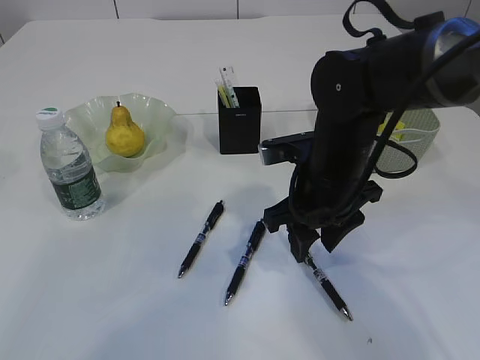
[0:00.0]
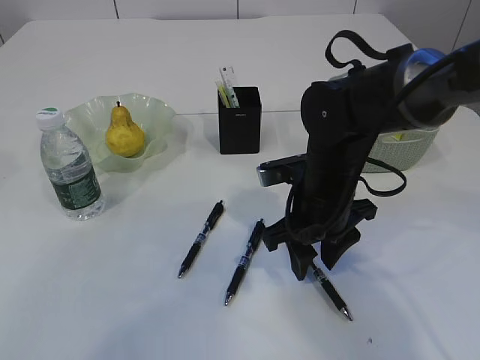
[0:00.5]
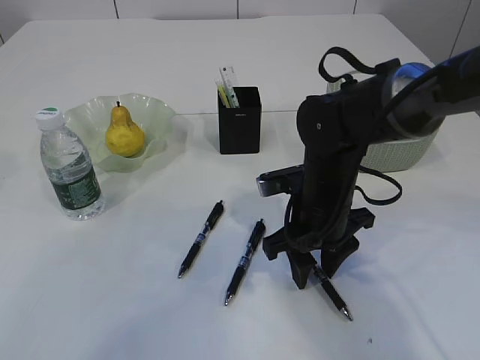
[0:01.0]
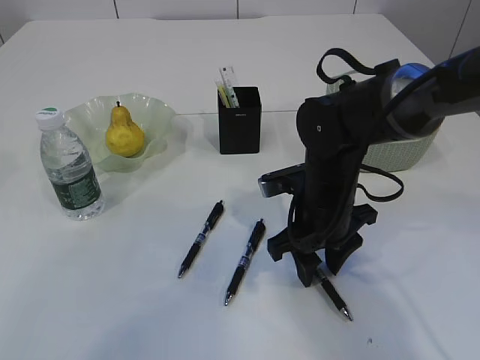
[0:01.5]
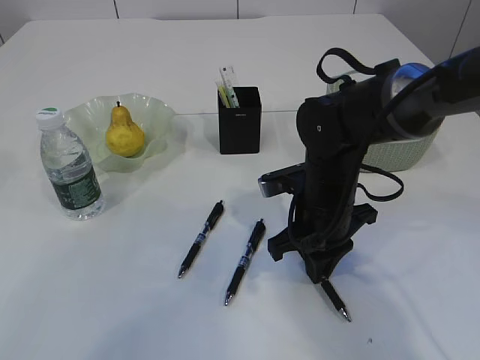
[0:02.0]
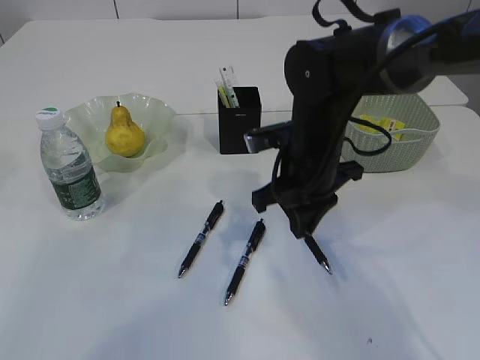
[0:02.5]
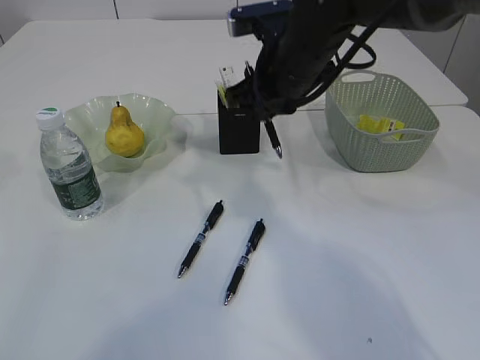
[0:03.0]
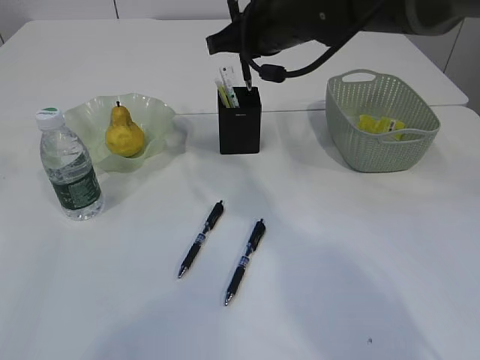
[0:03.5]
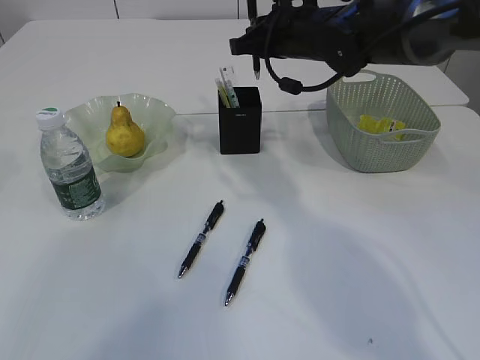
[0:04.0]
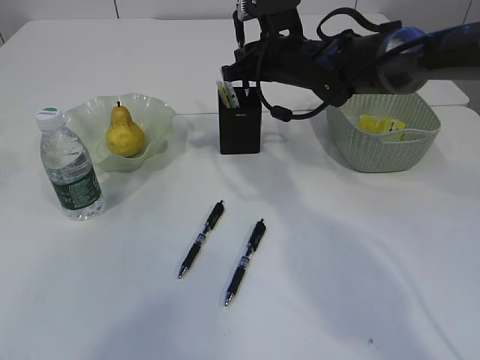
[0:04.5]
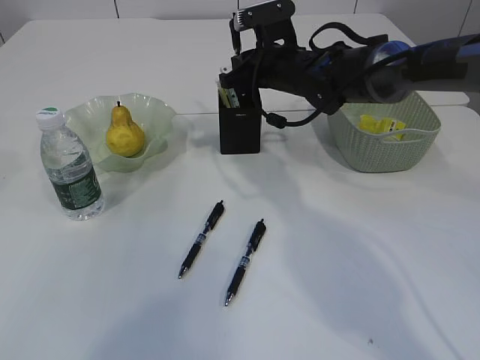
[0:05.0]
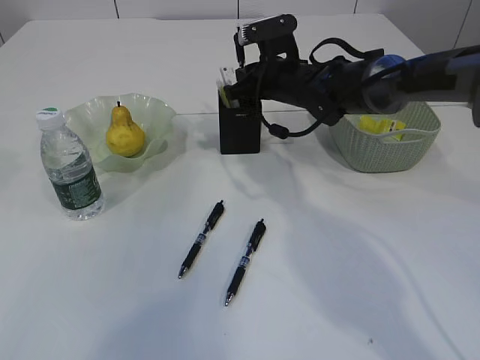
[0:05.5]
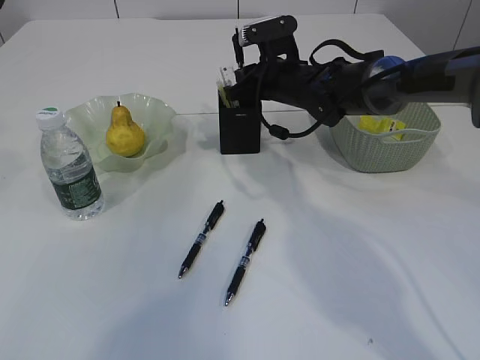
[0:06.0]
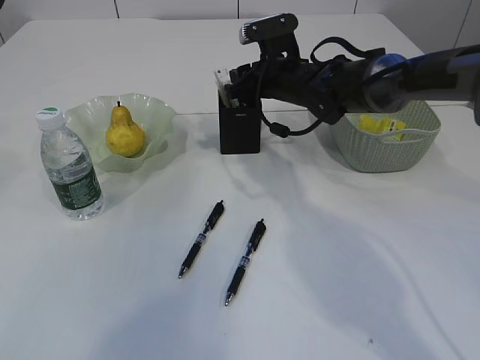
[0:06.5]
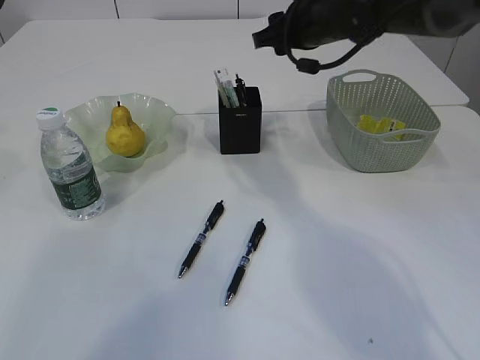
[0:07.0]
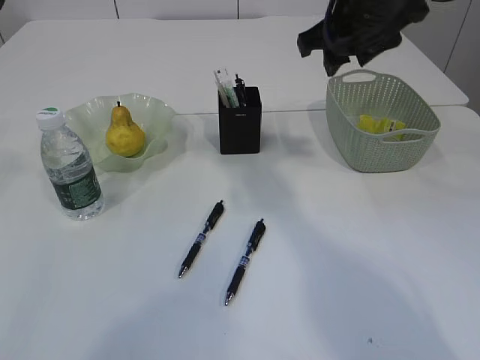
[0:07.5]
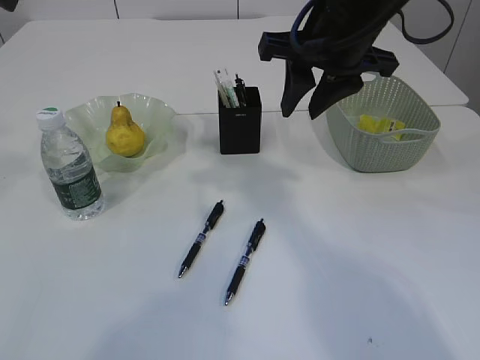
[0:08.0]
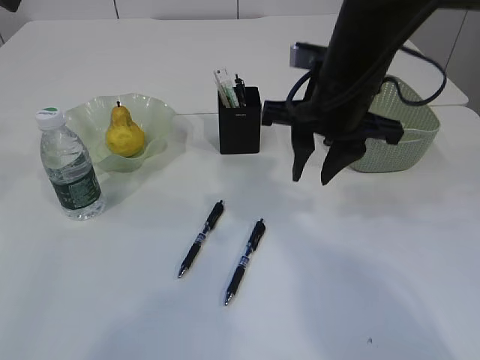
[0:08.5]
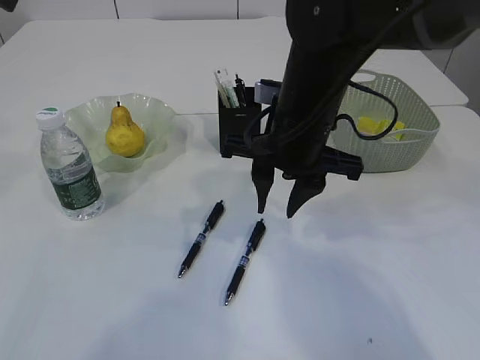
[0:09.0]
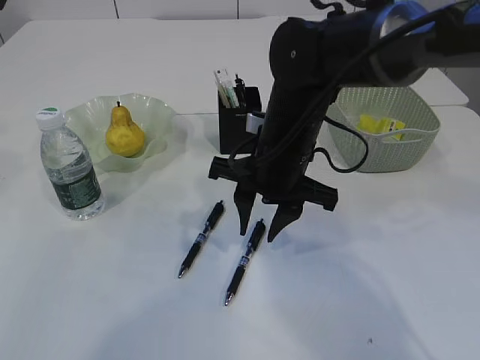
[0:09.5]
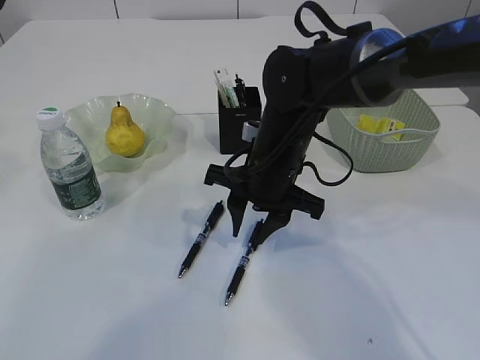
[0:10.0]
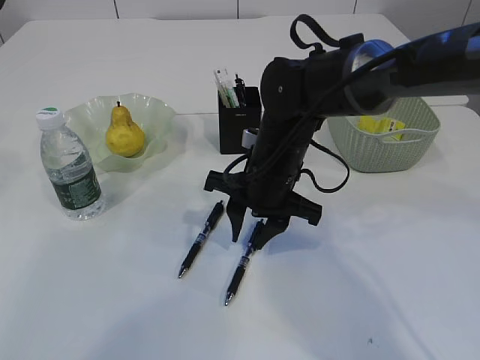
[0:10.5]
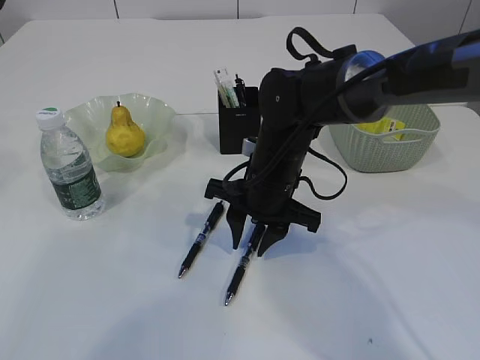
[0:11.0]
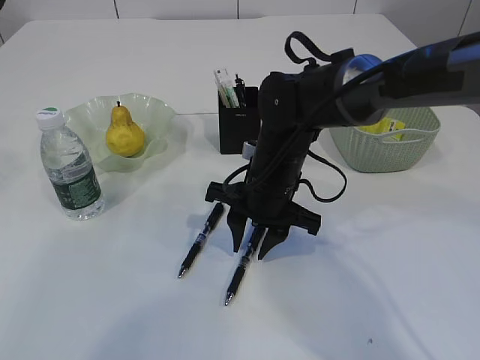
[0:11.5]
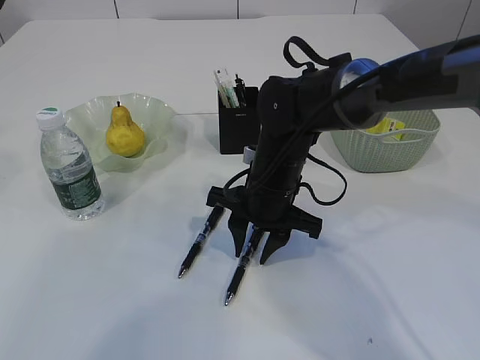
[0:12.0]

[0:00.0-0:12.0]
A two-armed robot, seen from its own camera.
Step, 0:00.0 to 0:02.5: Pick up the pen with right arm.
Step, 0:03.0 to 0:06.5: Place the pen into the pen holder.
0:00.0 to 0:02.0: The right gripper closes.
0:02.0 to 0:04.0: The right gripper moves forward and upward, approximately 20 cm.
0:04.0 to 0:06.0: The right gripper is displaced downward by some 10 cm.
0:06.0 to 0:08.0: The right gripper travels upward and backward by approximately 20 cm.
0:08.0 to 0:10.0: The right gripper heads downward and to the left, covering roughly 15 cm.
0:10.0 to 0:12.0: The grippers make only small movements.

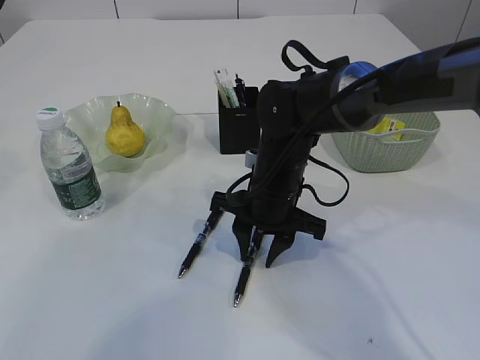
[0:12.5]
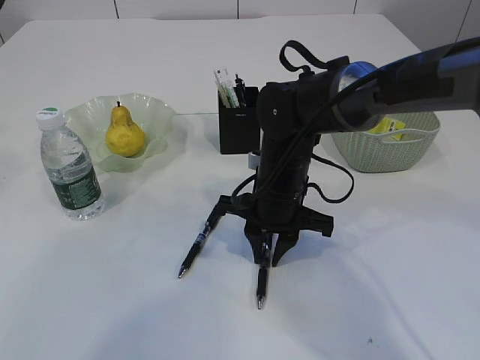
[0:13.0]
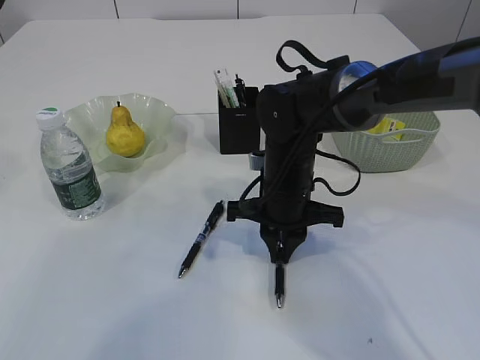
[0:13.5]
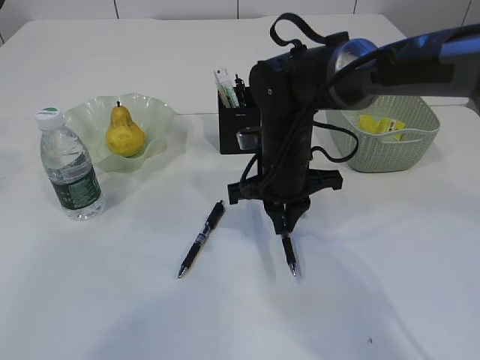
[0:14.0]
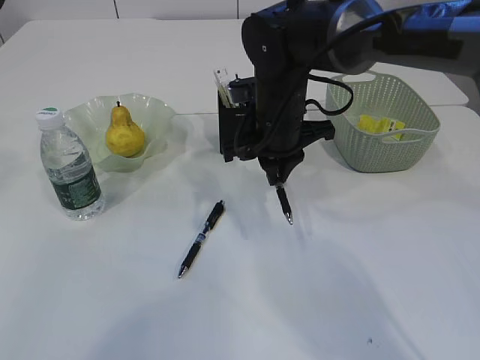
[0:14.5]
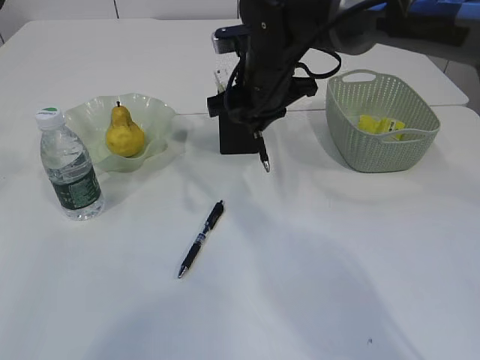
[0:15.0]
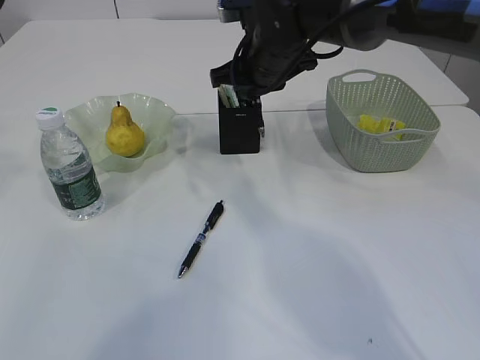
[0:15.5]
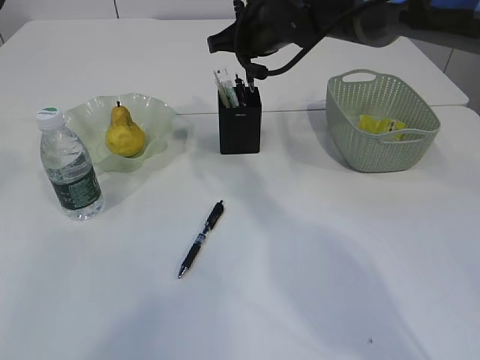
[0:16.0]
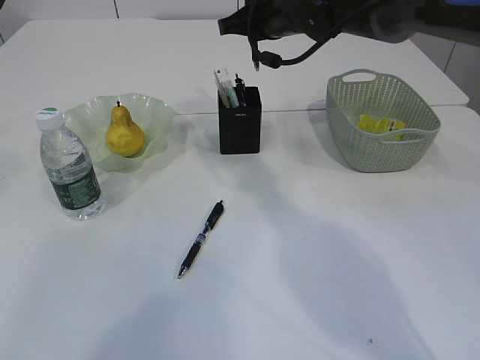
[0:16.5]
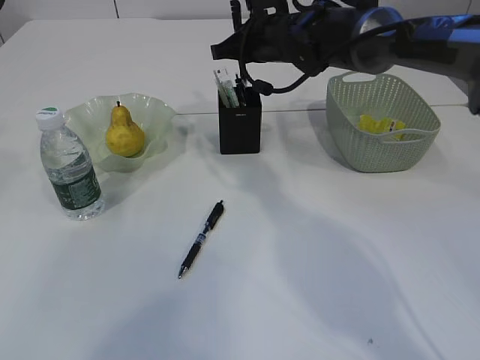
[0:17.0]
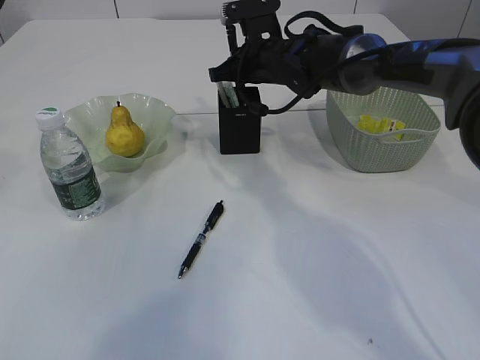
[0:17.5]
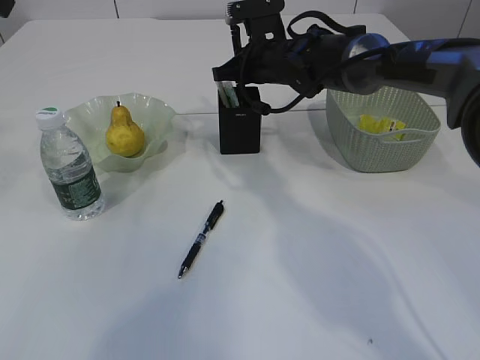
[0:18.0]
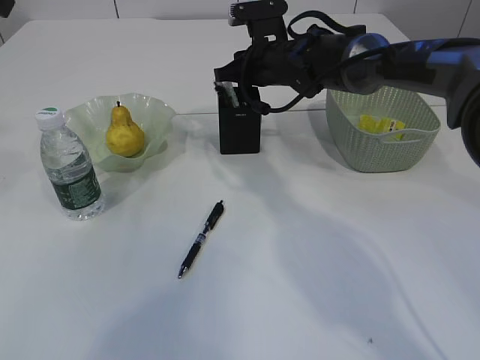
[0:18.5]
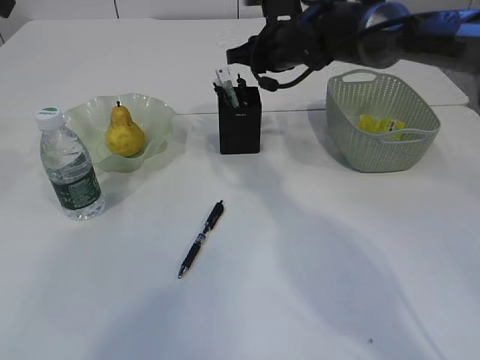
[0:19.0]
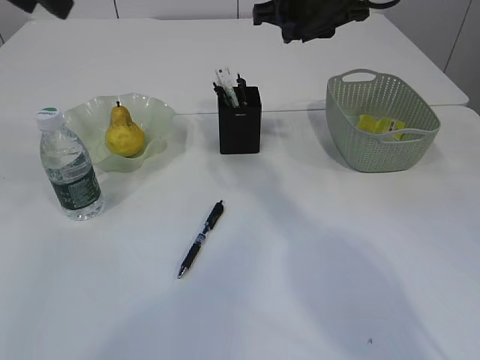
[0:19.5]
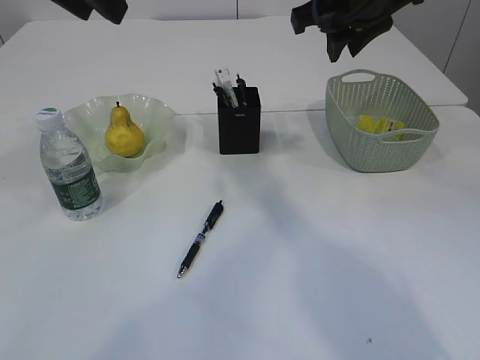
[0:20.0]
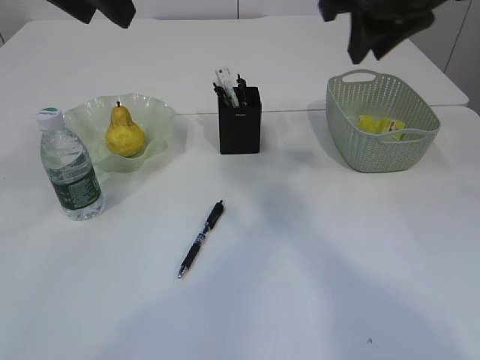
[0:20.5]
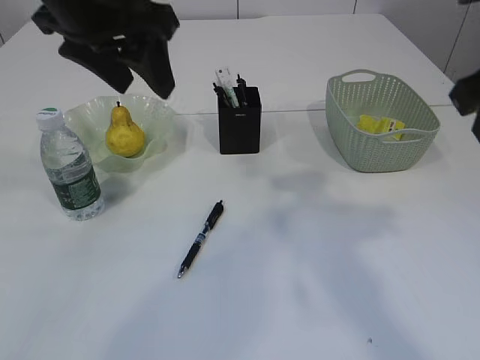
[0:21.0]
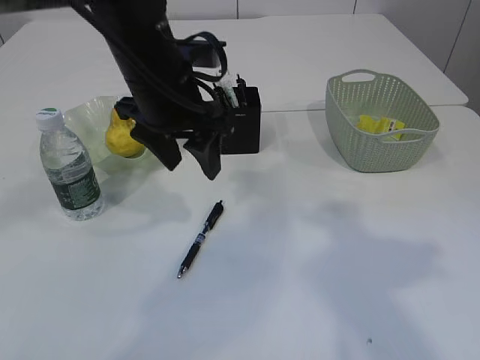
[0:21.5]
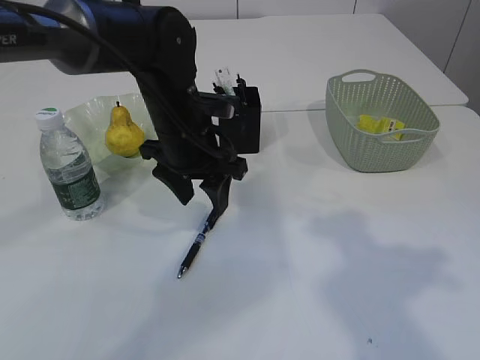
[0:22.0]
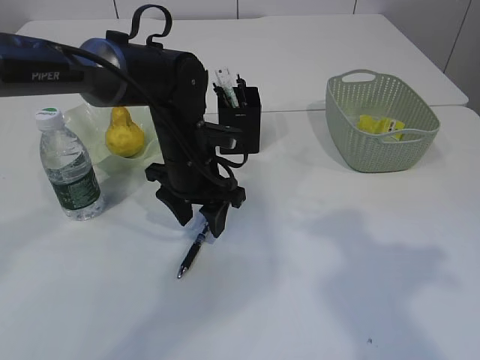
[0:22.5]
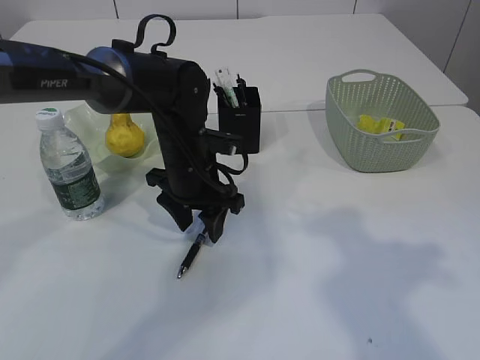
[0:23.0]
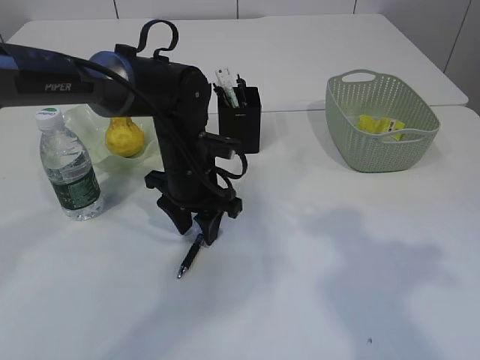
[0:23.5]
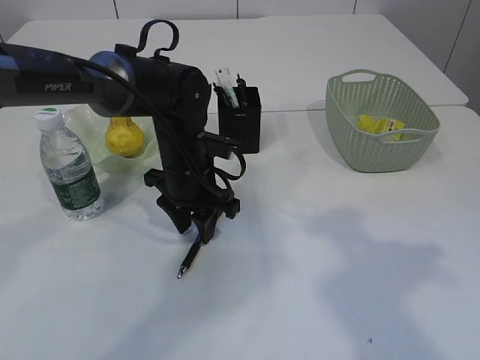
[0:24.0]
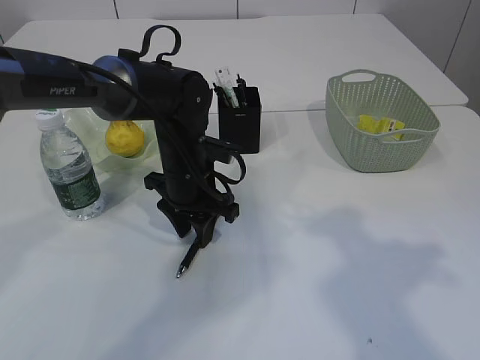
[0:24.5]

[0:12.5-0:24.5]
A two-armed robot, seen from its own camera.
Step, 0:14.5 to 0:19.0: Place the pen into the pen holder.
0:12.5 to 0:14.5: The right gripper is displaced upward by approximately 5 cm, and closes.
0:14.5 to 0:16.5: The right gripper shifts roughly 10 cm forward and upward.
0:16.5 to 0:18.5: The right gripper goes roughly 10 cm downward.
0:18.5 to 0:20.5: The left gripper moves to the right, about 10 cm, while the right gripper is displaced upward, backward and to the right by roughly 25 cm.
0:20.5 to 0:22.5: The left gripper moves downward, roughly 25 cm. The right gripper travels backward and to the right by some 20 cm.
0:22.5 to 0:24.5: The grippers make only small movements.

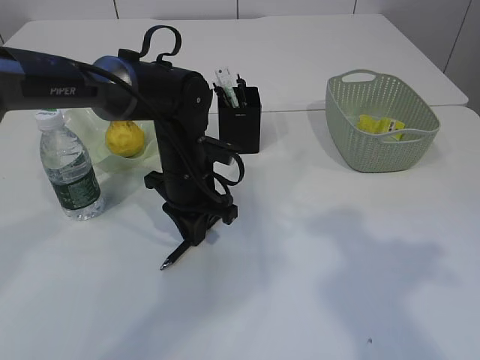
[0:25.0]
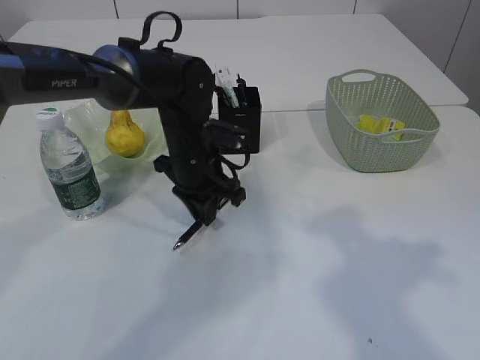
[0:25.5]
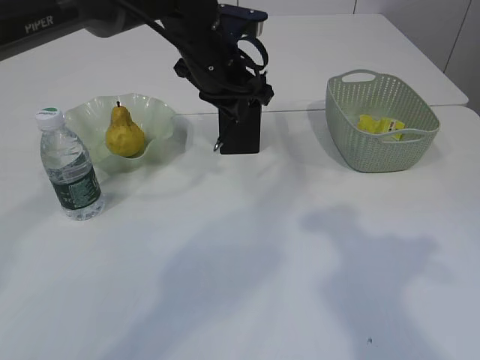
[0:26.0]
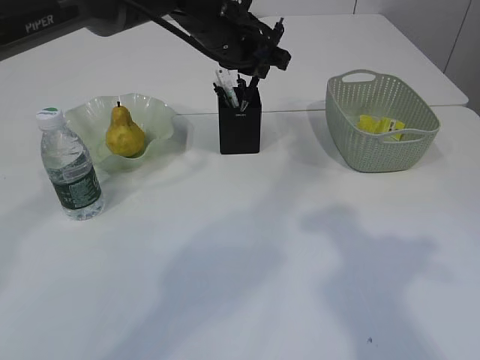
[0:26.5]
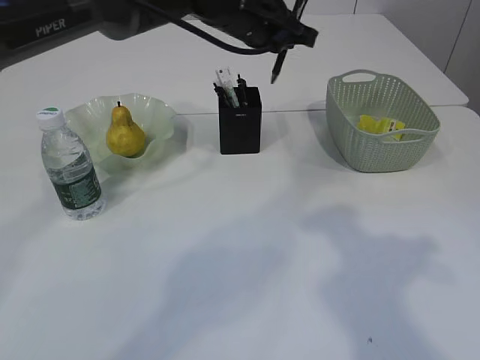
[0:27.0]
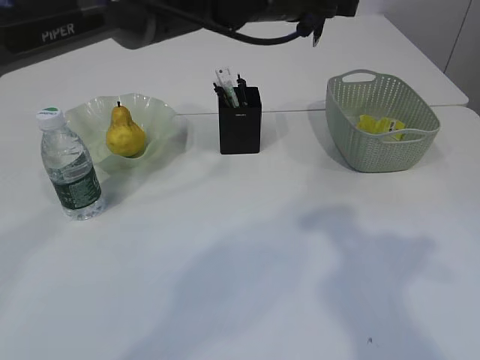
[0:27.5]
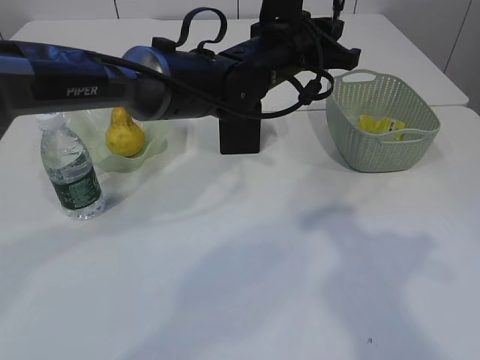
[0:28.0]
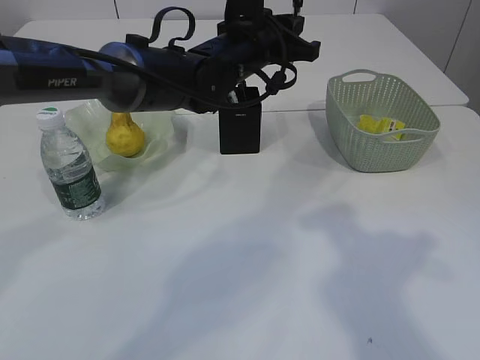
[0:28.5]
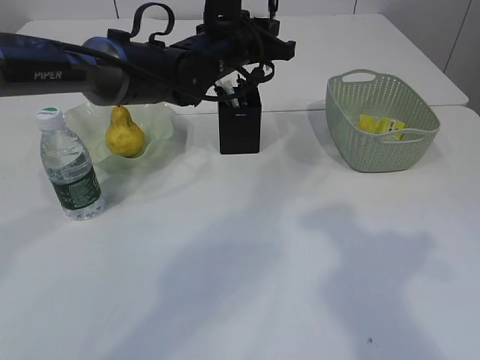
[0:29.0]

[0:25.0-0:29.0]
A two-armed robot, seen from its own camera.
0:25.0 to 0:27.0: The left gripper goes some 20 cm upward, forward and to the right.
0:27.0 to 0:29.0: The left gripper goes some 5 cm downward.
